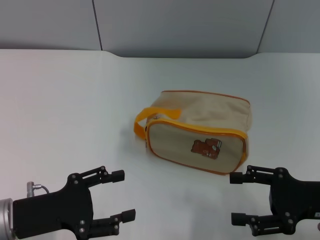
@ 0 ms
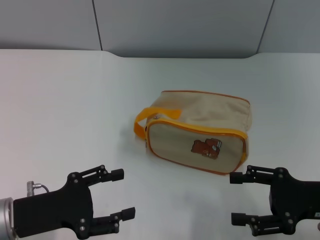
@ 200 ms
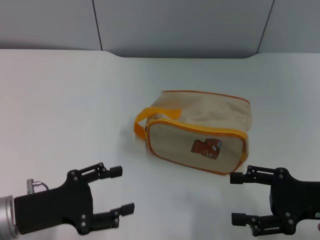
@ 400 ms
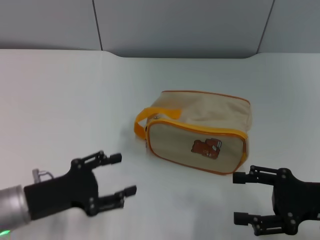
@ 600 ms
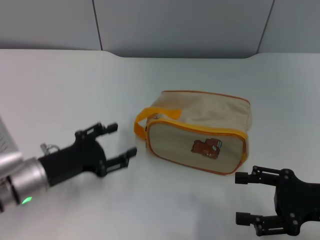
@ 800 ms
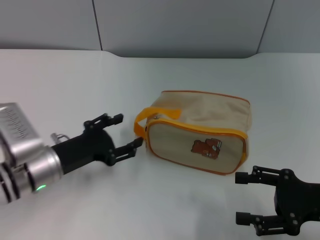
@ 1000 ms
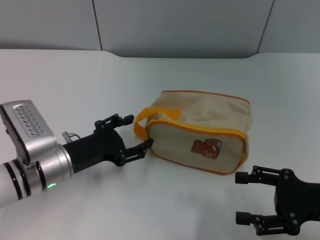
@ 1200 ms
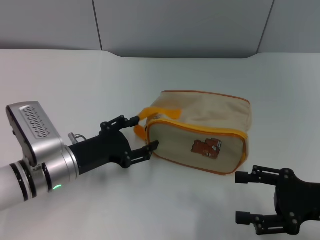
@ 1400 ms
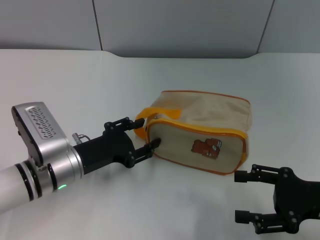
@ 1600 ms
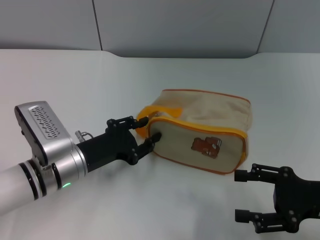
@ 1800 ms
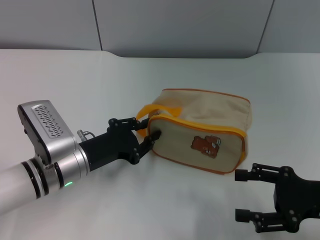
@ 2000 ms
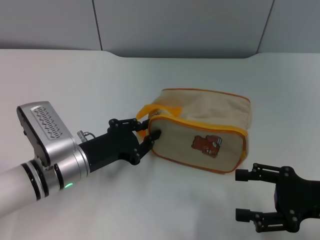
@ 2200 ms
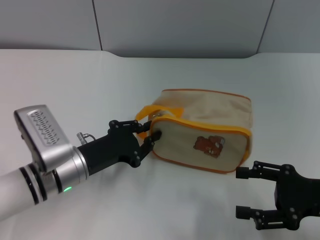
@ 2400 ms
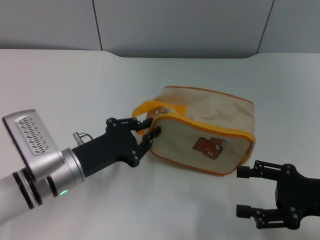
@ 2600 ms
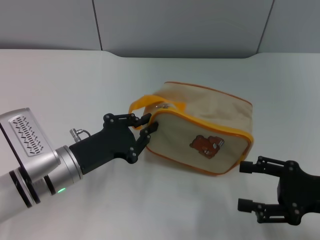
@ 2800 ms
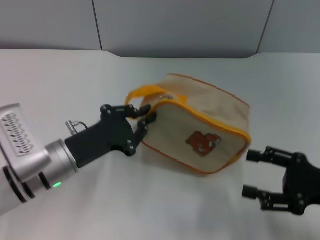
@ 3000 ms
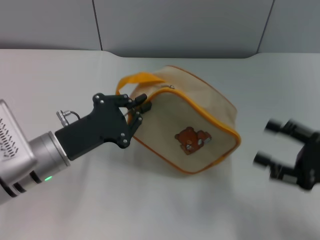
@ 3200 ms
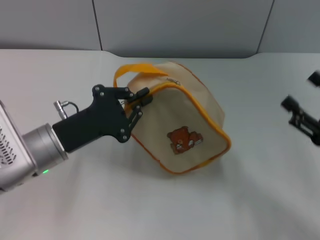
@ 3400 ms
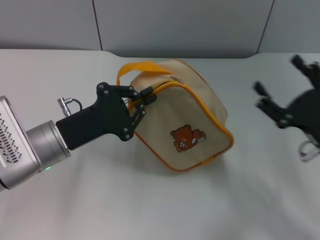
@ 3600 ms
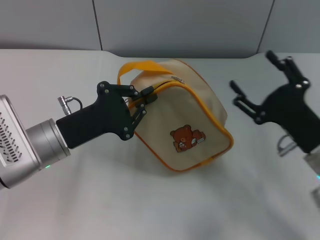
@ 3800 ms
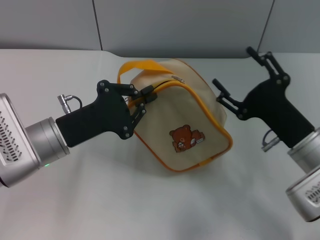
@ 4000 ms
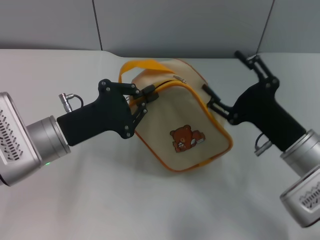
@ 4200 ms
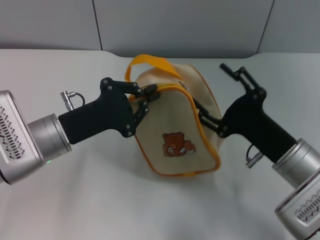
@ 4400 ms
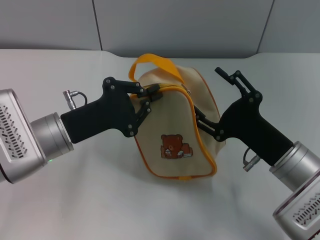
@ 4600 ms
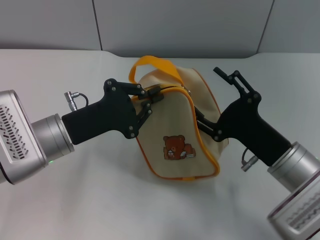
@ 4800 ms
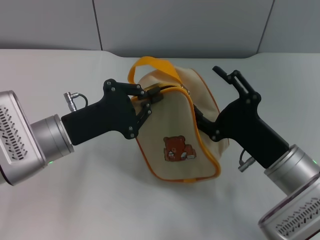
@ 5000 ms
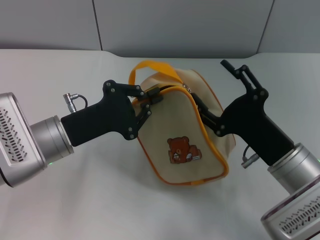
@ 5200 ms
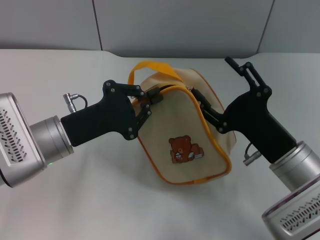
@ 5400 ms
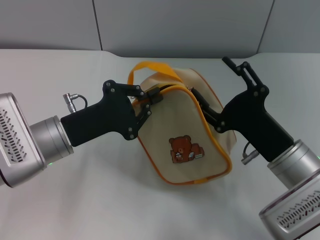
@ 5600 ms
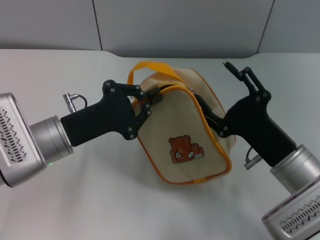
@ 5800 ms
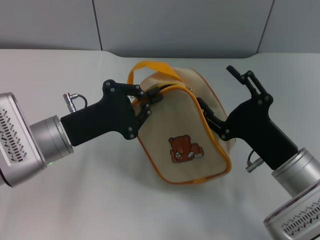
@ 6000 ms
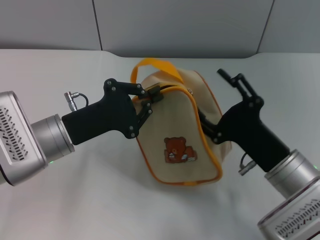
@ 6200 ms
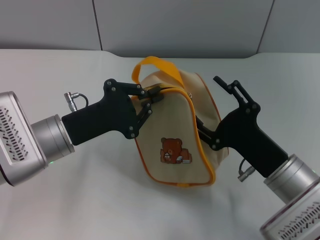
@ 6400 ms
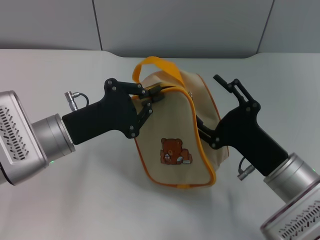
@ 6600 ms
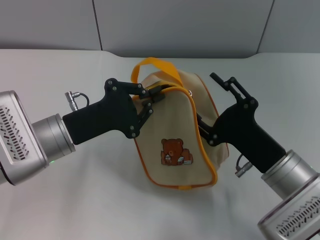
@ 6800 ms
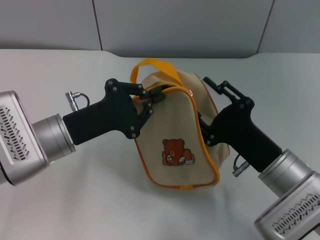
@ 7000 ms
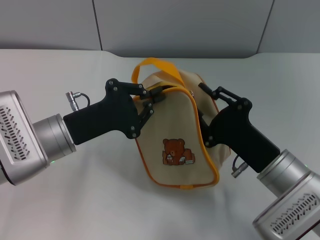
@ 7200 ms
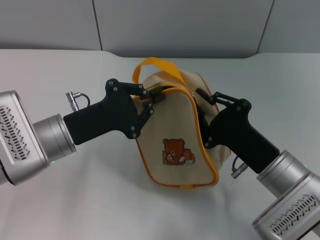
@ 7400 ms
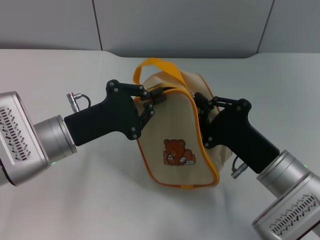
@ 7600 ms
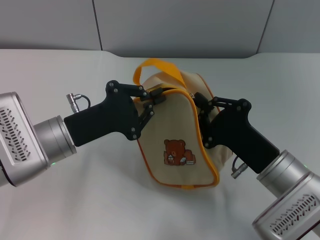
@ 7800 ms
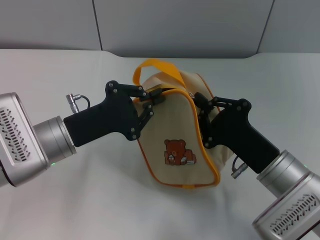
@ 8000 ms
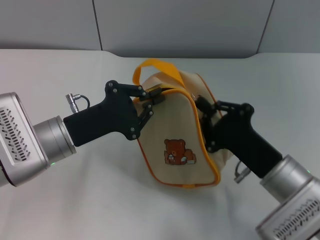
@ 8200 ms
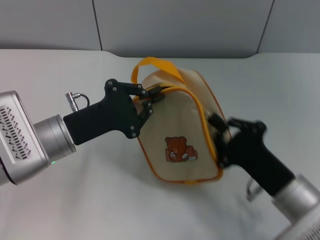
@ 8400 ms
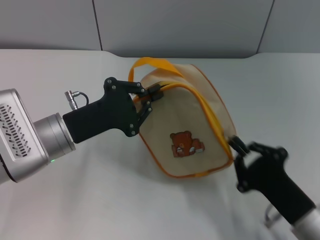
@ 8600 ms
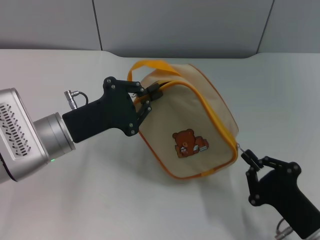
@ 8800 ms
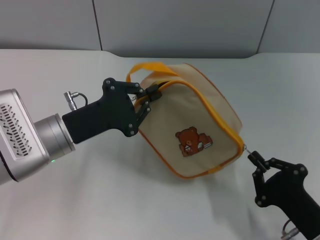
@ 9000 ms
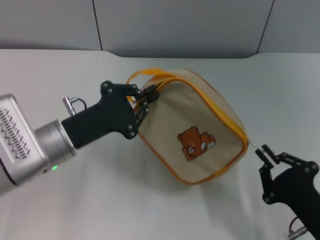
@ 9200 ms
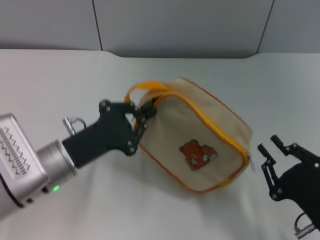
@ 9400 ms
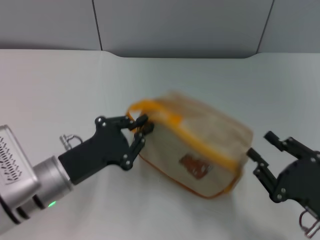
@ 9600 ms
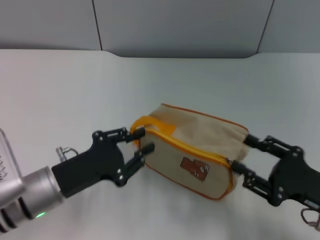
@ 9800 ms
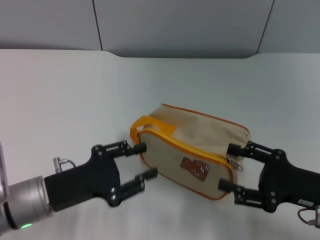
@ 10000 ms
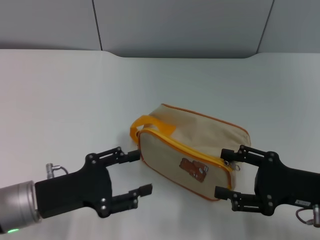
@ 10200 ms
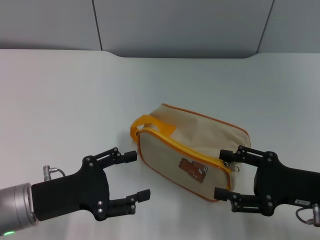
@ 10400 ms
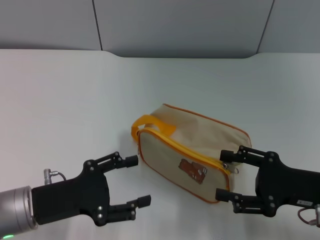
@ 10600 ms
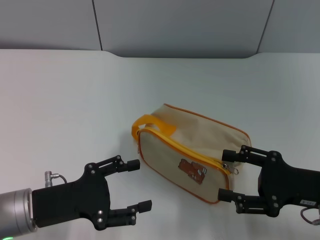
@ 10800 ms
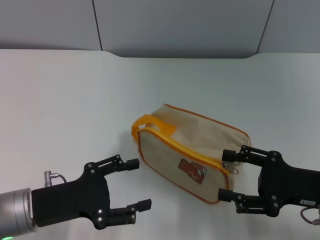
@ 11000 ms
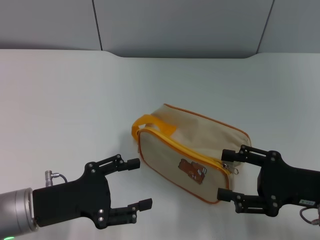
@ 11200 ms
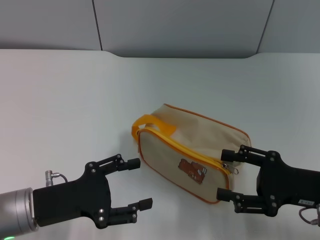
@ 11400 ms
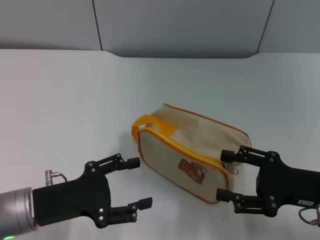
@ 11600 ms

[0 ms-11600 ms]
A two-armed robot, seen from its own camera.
Step, 0 ms to 2800 ms: Pick up the bag with left gripper.
Step, 3000 ms to 9200 ms: Unzip the zipper of bag with right gripper.
0 ms to 1400 ms: The left gripper shifts some 10 cm forward and to the right.
1400 ms to 2800 ms: The left gripper closes.
2800 ms to 4400 ms: The right gripper travels to the left by roughly 10 cm. Meanwhile the left gripper shifts by about 5 cm.
4400 ms to 7200 ms: The grippers move only a little.
7200 ms to 8800 ms: The right gripper travels backward and to the right by about 10 cm, and closes up.
8800 ms to 10200 ms: The right gripper goes some 10 cm forward and upward, and opens its fingers. The left gripper shifts about 5 cm backward, and opens.
10200 ms to 11600 ms: The left gripper opens up.
